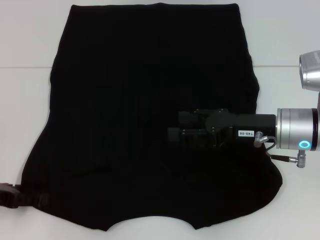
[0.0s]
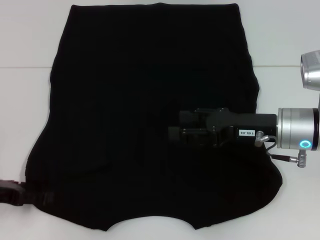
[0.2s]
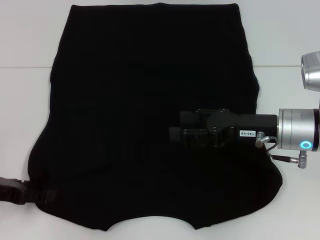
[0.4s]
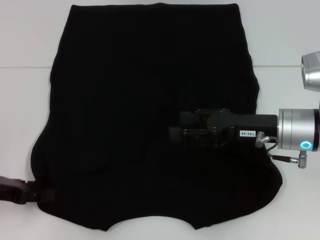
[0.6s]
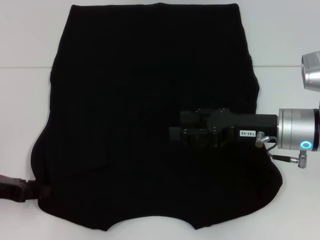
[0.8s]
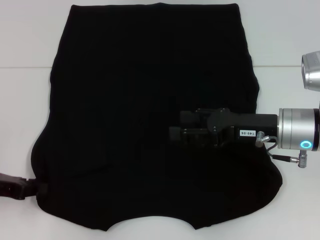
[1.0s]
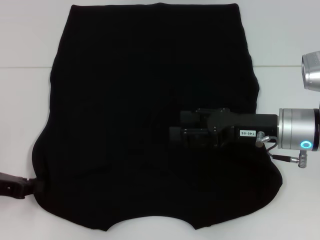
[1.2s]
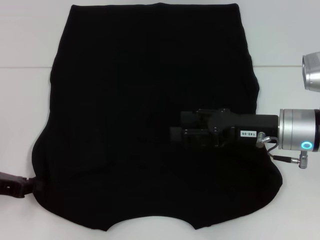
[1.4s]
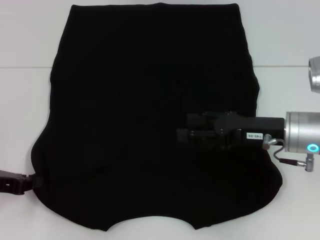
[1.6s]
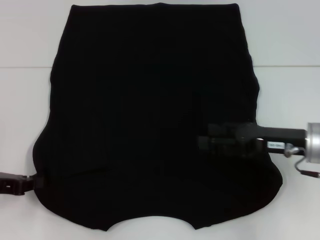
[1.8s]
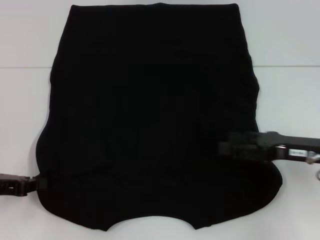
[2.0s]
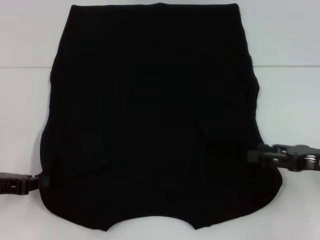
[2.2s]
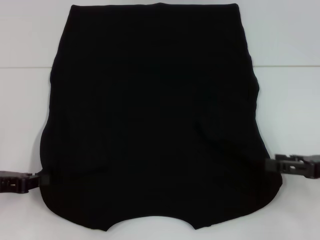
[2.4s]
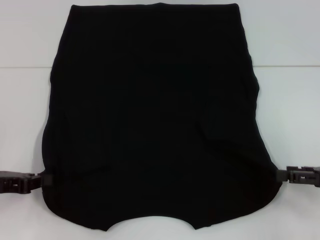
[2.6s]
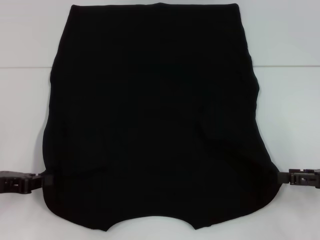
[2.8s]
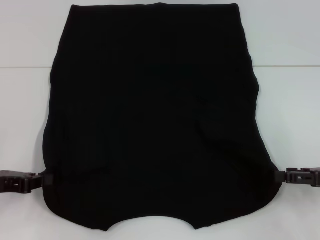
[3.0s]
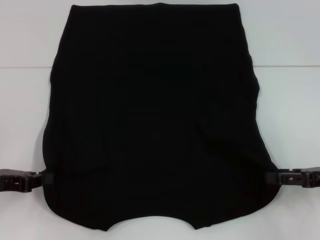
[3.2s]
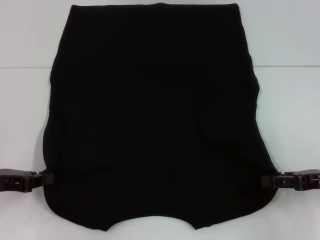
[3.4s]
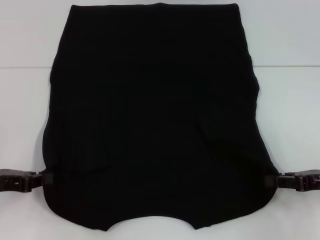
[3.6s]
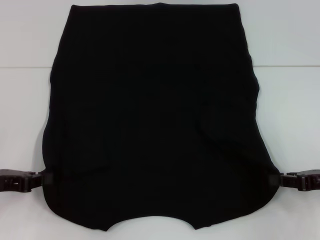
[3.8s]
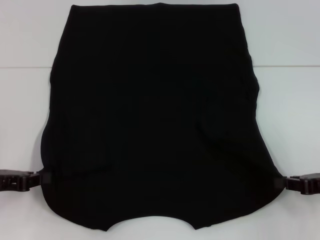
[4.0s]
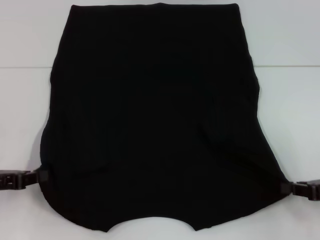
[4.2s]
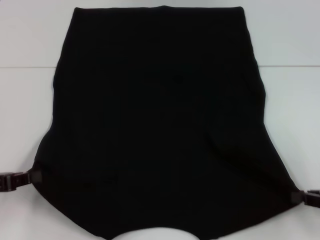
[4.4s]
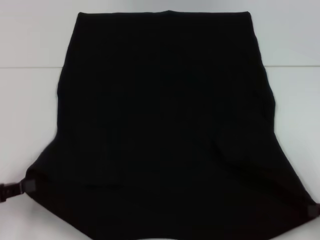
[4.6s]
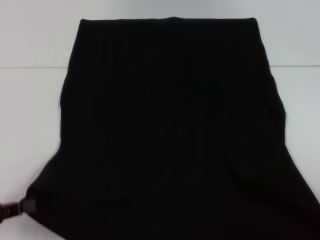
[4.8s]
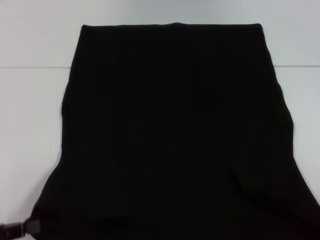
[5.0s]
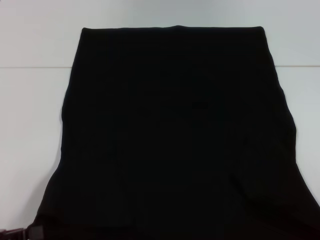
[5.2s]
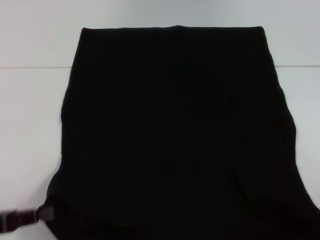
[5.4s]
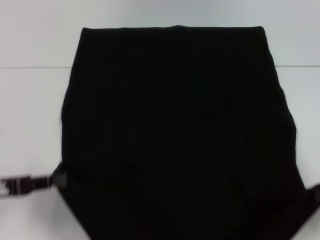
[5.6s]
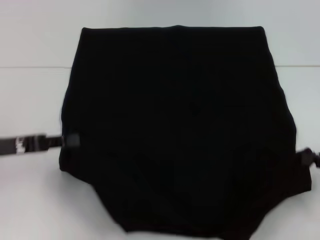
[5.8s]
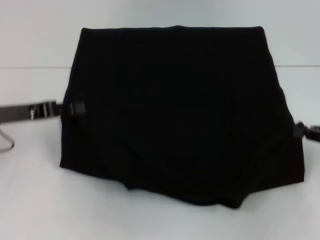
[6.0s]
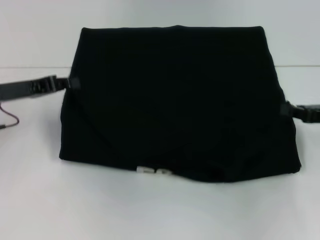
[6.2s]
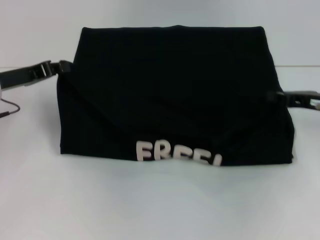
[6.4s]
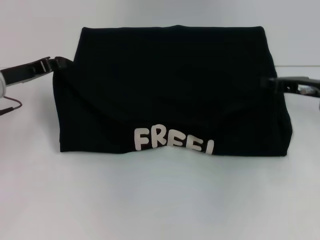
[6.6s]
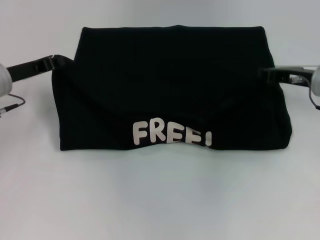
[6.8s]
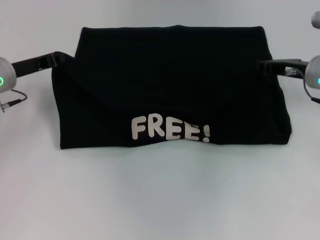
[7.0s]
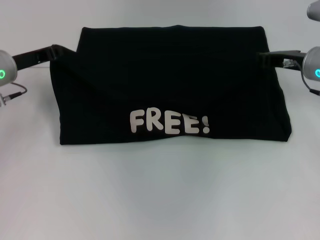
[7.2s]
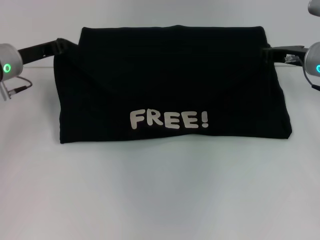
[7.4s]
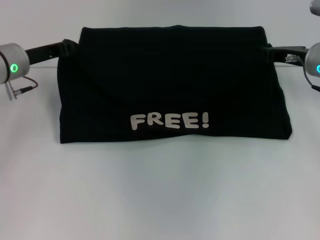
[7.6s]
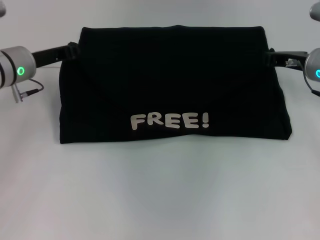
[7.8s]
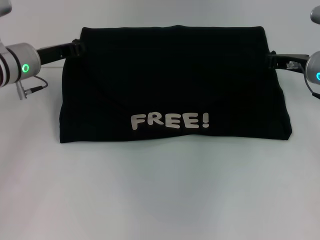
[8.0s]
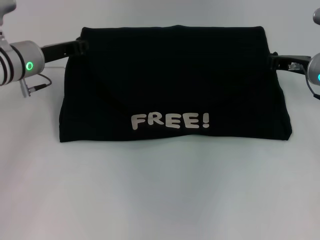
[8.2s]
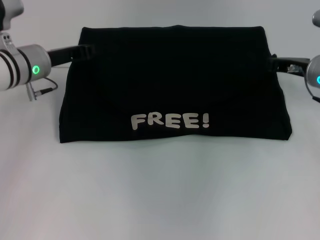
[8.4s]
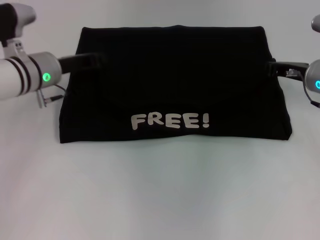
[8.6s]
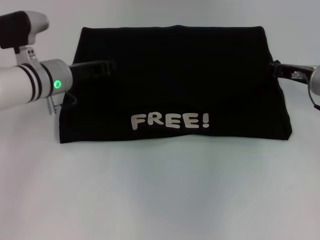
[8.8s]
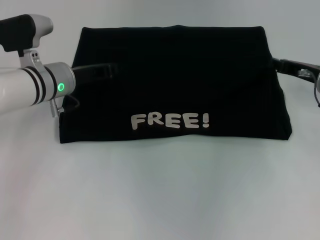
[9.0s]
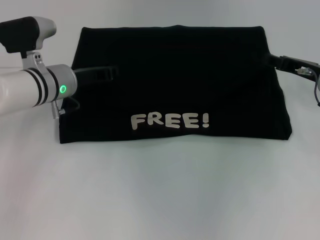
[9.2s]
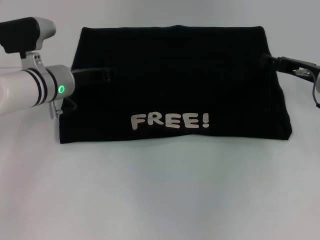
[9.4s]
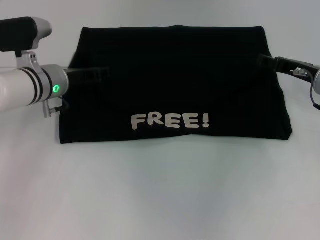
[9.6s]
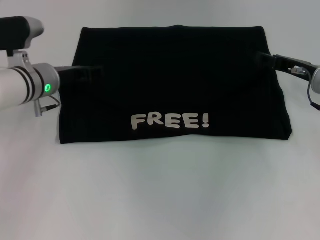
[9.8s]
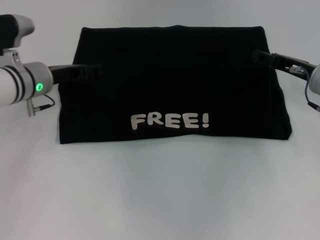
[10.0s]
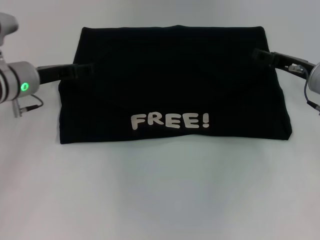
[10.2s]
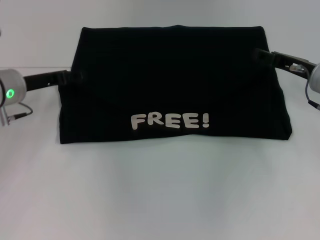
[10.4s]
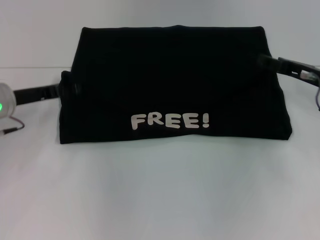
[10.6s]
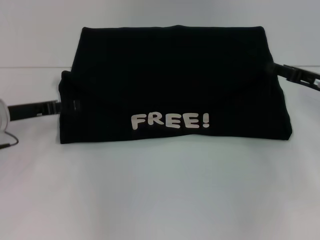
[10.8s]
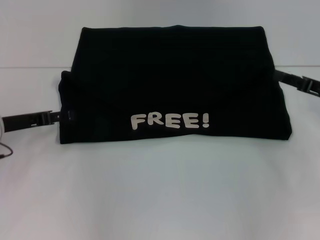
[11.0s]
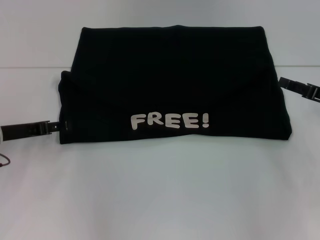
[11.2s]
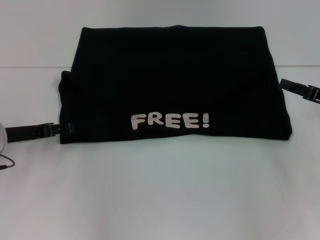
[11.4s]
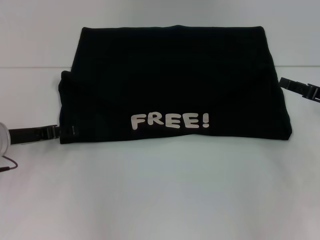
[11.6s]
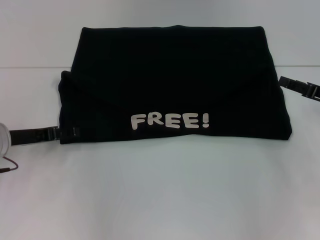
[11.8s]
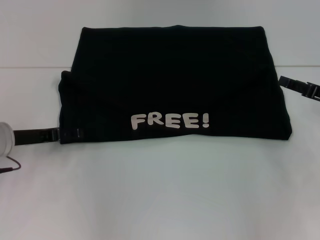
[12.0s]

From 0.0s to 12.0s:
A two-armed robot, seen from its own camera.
Step, from 0.0s to 2.0s: Grab the bottom left corner with your left hand.
Step, from 2.2s to 3.8s: Grab the bottom right corner with your right hand.
Step, from 4.0s to 9.2s: Fold the clothes with your left hand.
Step, from 4.0s to 9.2s: Fold the clothes with your right hand.
From 0.0s to 1.6s: The left gripper closes up.
From 1.6s to 3.0s: The right gripper travels to the right by approximately 15 cm.
From 3.0s to 4.4s: The right gripper closes.
From 4.4s to 6.0s: The left gripper travels forward by some 10 cm. Meanwhile the right gripper moves forward, about 5 cm.
From 6.0s to 7.6s: The left gripper goes roughly 10 cm forward. The right gripper moves forward and to the left, some 15 cm.
From 7.6s to 9.0s: The left gripper travels to the right by approximately 5 cm.
From 9.0s to 10.4s: The left gripper goes some 5 cm to the left, and opens. Meanwhile the right gripper opens its fingers.
From 10.4s to 12.0s: The left gripper is displaced backward by some 5 cm, while the right gripper travels to the right and backward by about 10 cm.

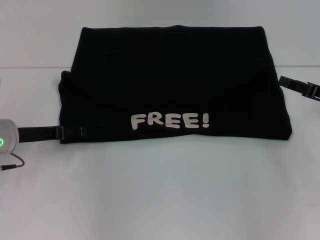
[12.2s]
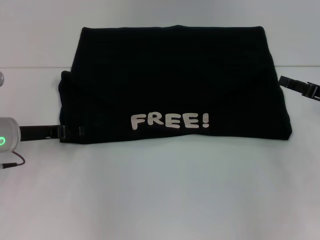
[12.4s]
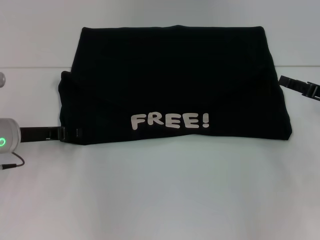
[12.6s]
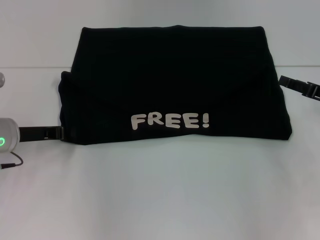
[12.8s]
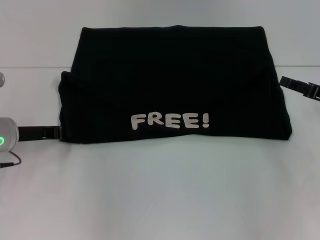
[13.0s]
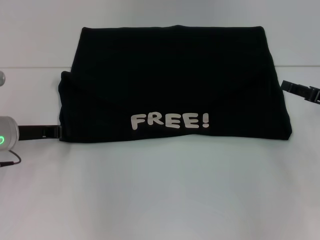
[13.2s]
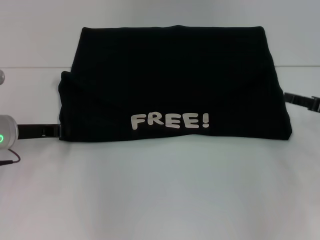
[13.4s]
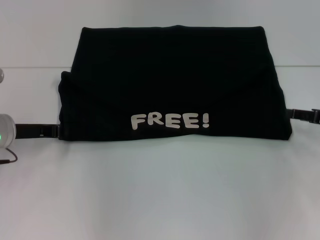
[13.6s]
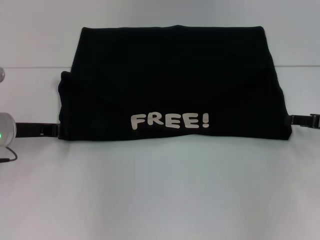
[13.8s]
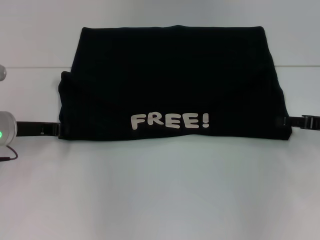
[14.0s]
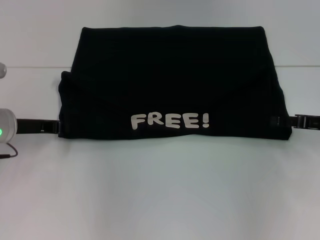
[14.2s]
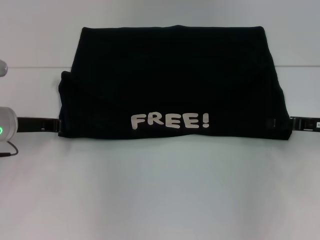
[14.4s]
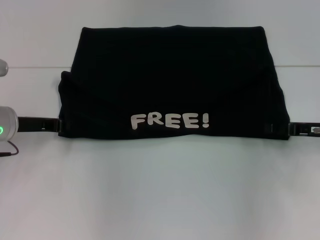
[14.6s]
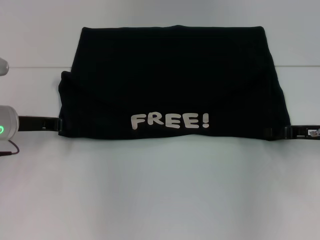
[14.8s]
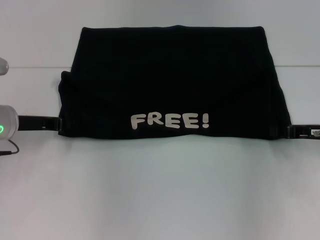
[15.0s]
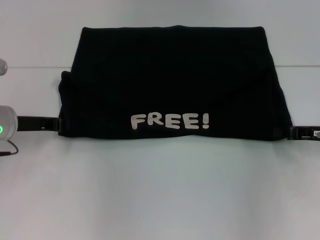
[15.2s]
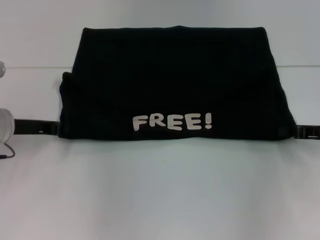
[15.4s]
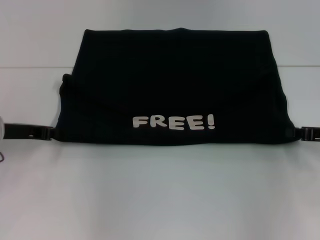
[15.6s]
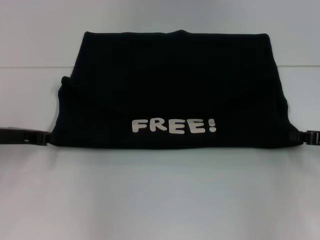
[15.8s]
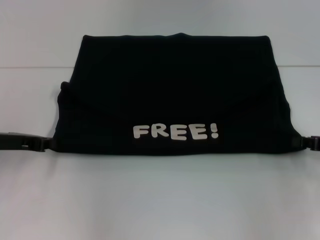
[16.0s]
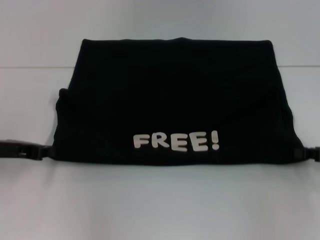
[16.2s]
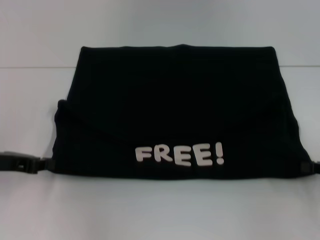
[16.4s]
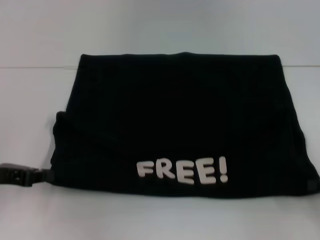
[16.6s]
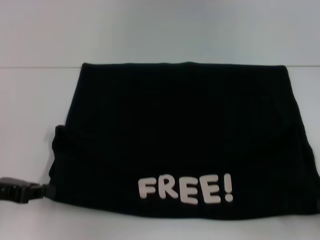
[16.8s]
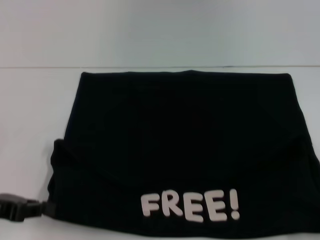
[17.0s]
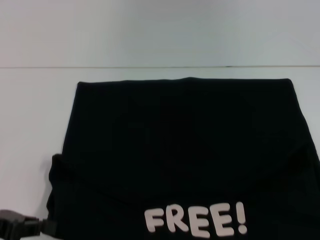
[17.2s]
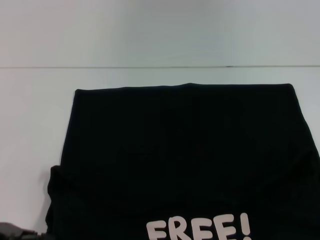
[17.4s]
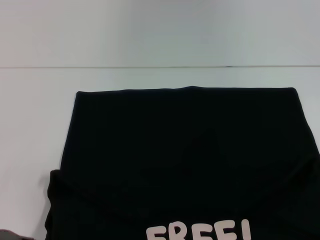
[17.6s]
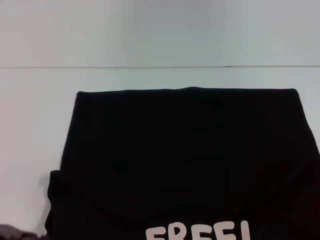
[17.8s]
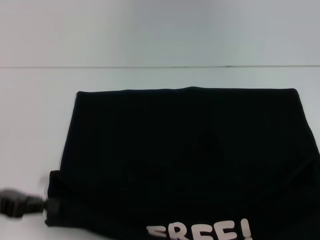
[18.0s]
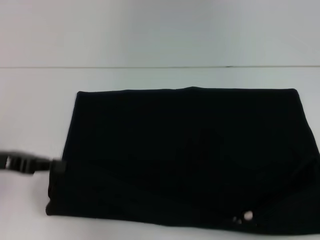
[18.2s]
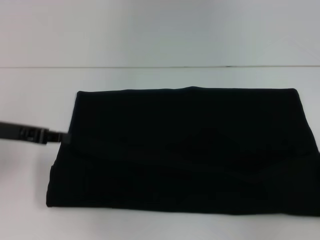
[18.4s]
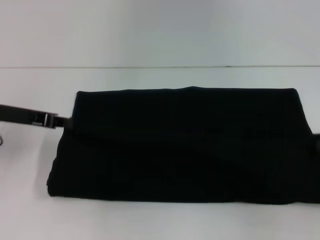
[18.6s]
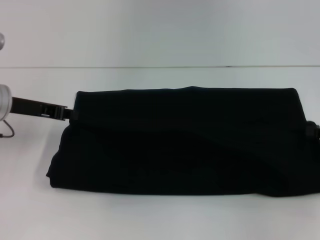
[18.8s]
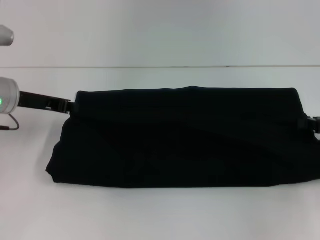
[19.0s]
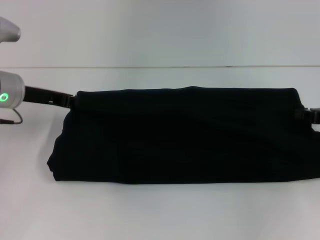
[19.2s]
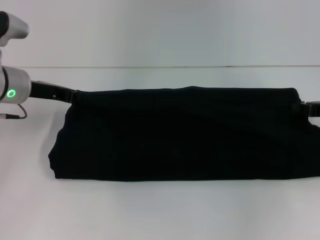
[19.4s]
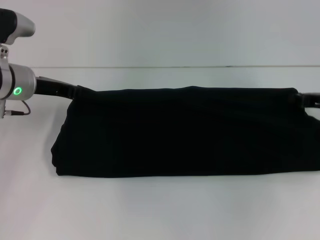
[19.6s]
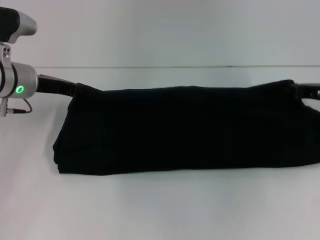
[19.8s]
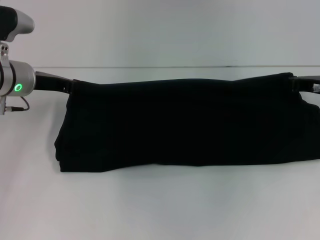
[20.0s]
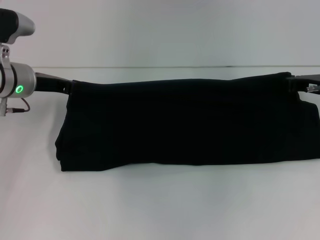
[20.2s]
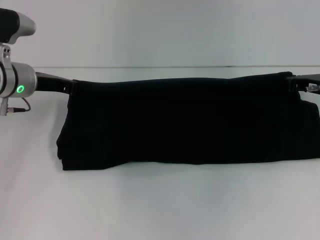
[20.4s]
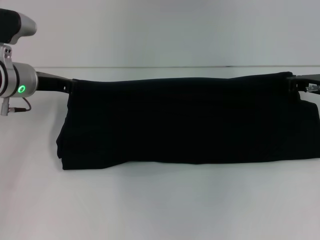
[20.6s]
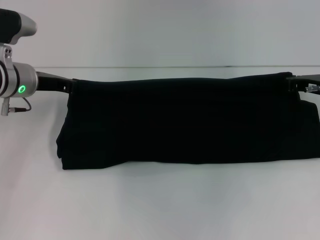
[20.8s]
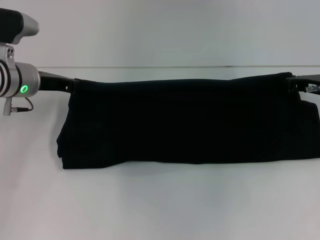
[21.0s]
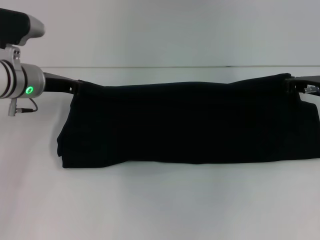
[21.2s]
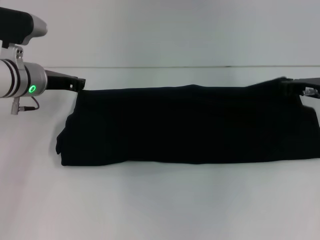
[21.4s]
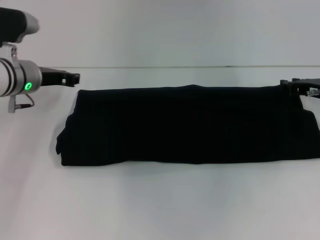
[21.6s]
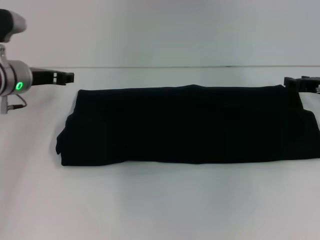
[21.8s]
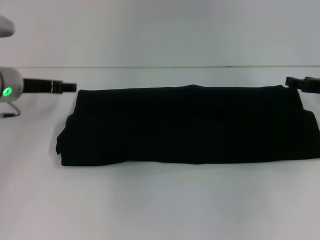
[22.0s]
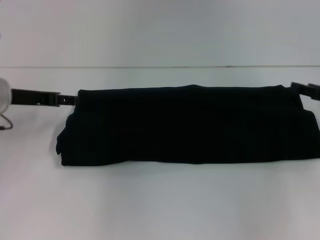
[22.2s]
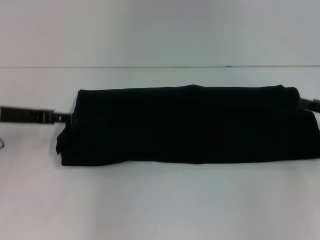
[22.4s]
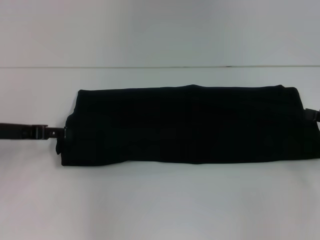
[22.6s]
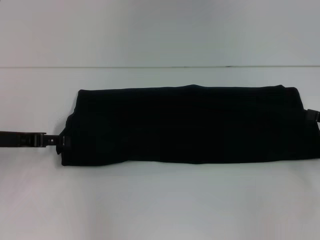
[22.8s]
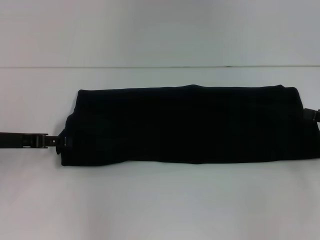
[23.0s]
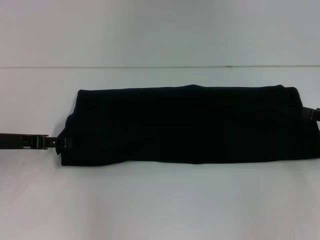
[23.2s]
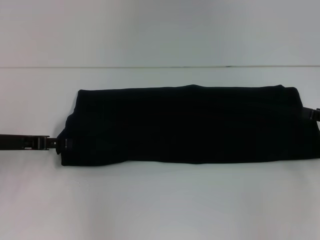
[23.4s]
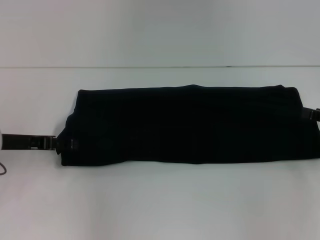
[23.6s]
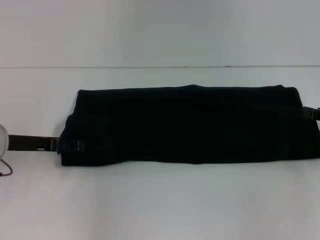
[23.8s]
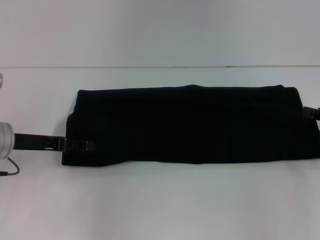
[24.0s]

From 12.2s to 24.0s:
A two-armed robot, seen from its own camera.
Step, from 12.2s to 17.6s: Pull the clothes with your left hand.
Step, from 12.2s to 17.6s: Pull the clothes with your right hand.
Step, from 17.8s to 21.6s: Fold the clothes with your right hand.
From 12.2s to 13.6s: The left gripper closes its fingers.
From 13.6s to 15.2s: The right gripper closes.
From 15.2s to 16.6s: The left gripper heads backward, covering some 10 cm. Meanwhile the right gripper goes about 10 cm backward and to the right.
From 16.6s to 18.2s: The right gripper travels backward and back again, some 10 cm each way; the left gripper goes backward and returns, roughly 5 cm each way.
From 18.2s to 19.6s: The left gripper shifts approximately 15 cm forward and to the right; the right gripper goes approximately 20 cm forward and to the left.
From 19.6s to 21.0s: The grippers stay close to where they were, moving slightly.
From 21.0s to 22.6s: The right gripper travels backward and to the right by roughly 15 cm, and opens its fingers; the left gripper goes approximately 10 cm backward and to the left, and opens.
From 22.6s to 24.0s: The grippers stay close to where they were, moving slightly.
